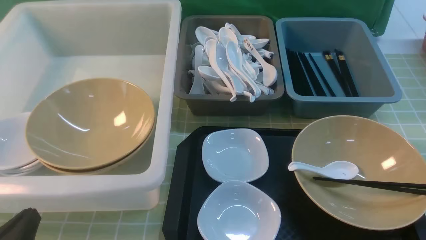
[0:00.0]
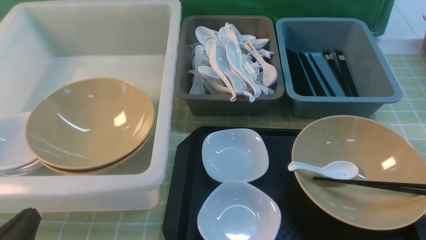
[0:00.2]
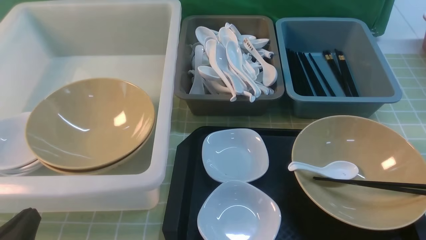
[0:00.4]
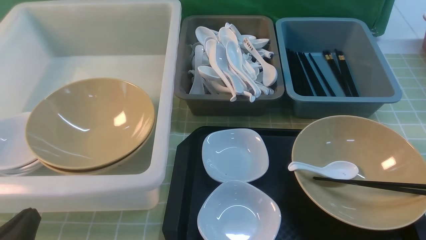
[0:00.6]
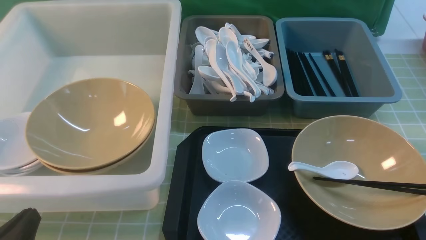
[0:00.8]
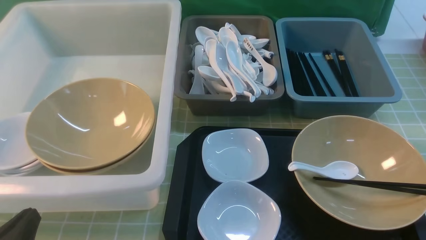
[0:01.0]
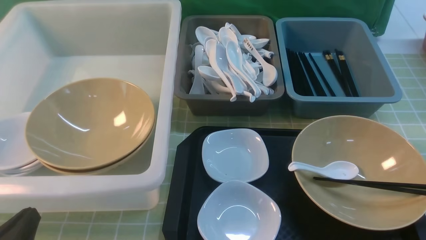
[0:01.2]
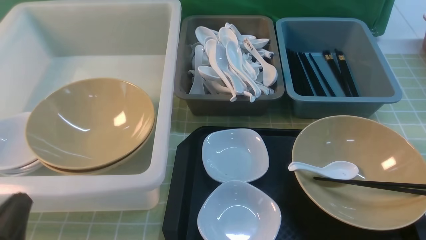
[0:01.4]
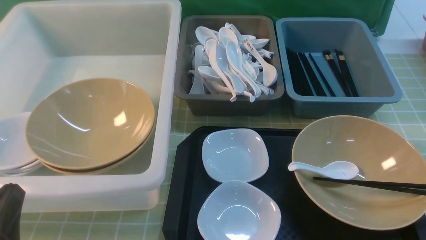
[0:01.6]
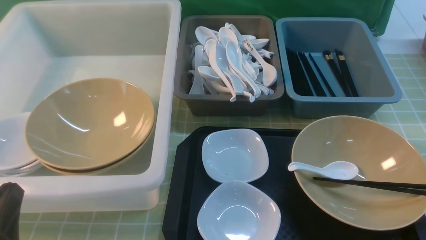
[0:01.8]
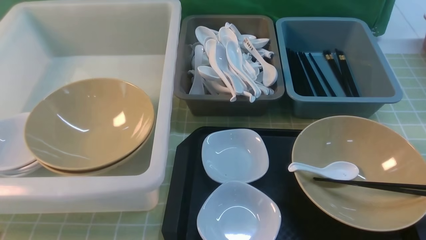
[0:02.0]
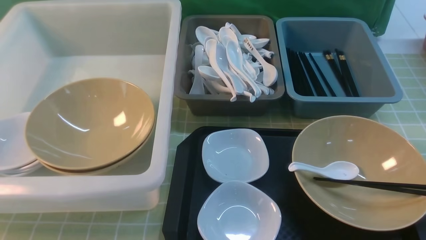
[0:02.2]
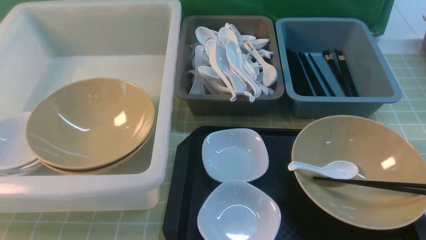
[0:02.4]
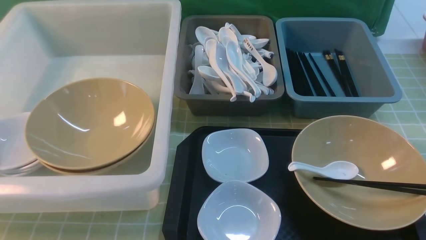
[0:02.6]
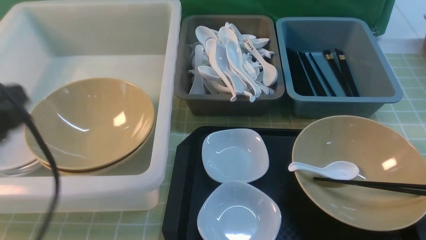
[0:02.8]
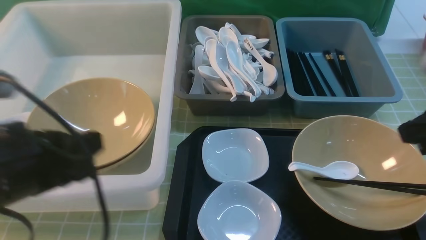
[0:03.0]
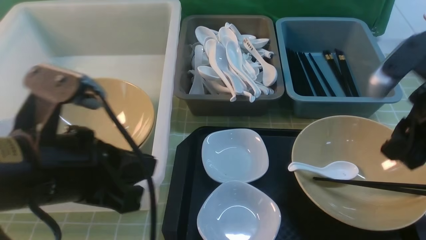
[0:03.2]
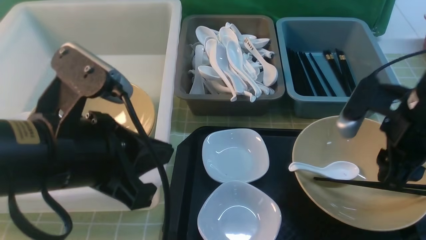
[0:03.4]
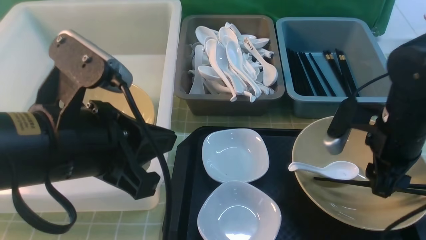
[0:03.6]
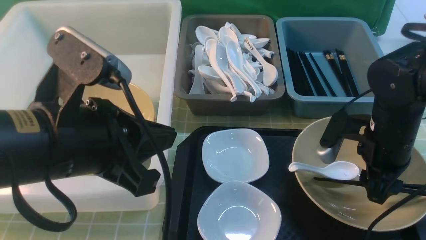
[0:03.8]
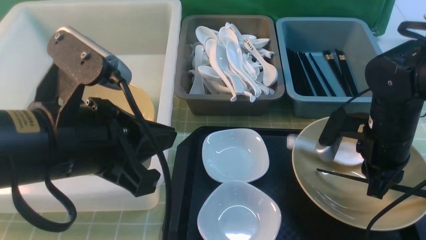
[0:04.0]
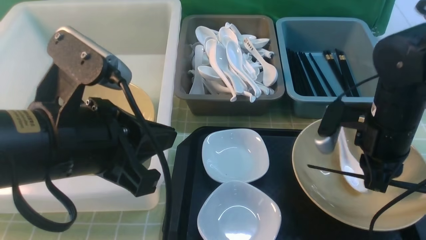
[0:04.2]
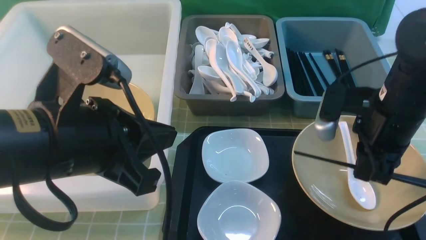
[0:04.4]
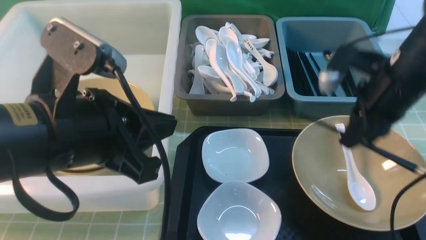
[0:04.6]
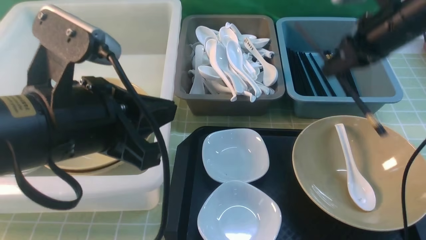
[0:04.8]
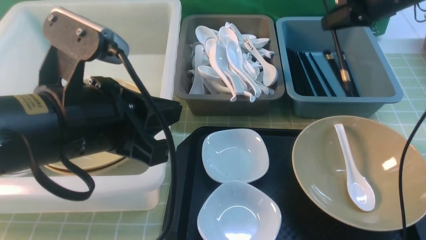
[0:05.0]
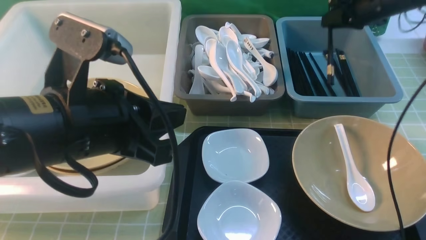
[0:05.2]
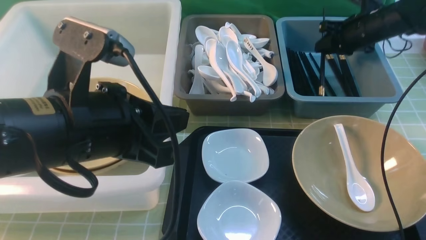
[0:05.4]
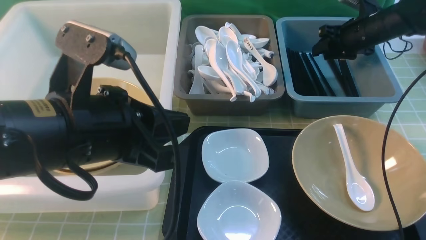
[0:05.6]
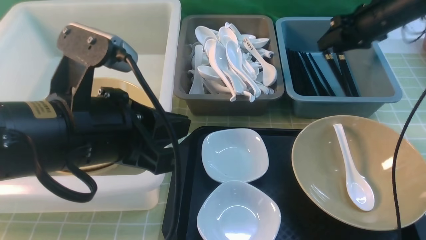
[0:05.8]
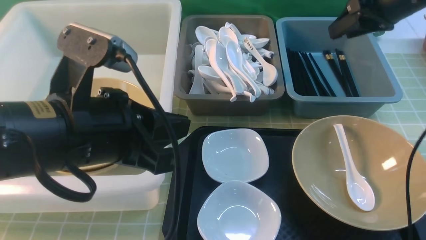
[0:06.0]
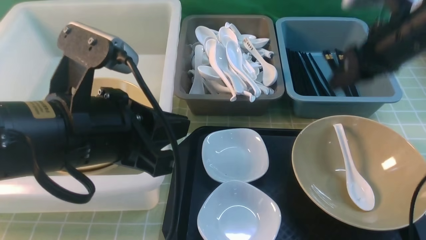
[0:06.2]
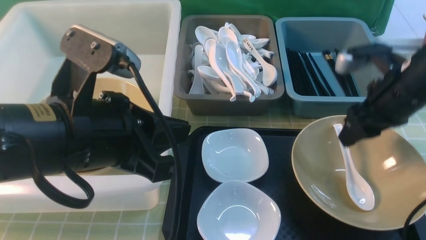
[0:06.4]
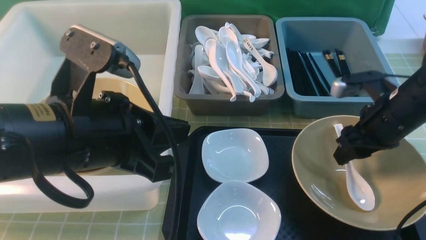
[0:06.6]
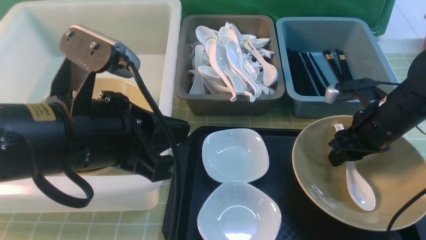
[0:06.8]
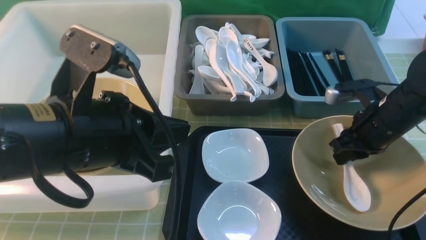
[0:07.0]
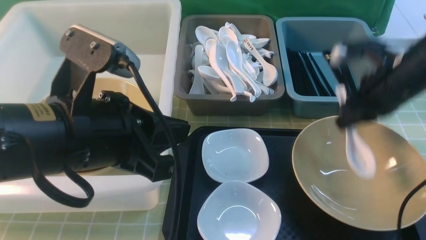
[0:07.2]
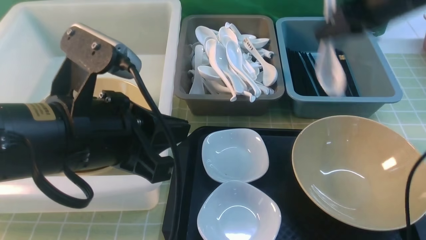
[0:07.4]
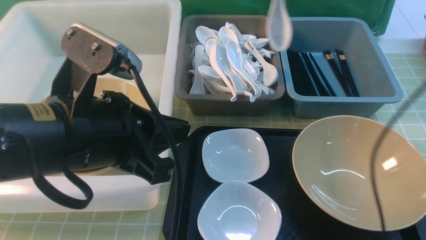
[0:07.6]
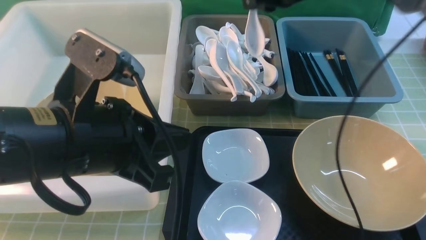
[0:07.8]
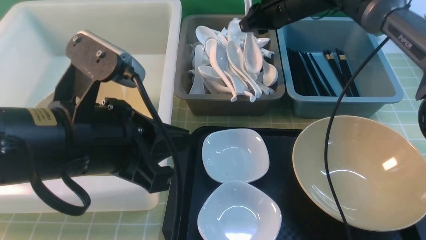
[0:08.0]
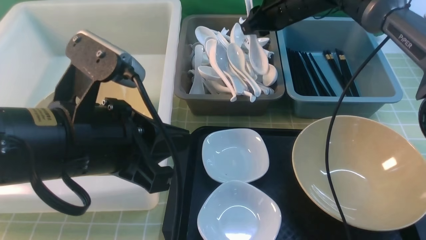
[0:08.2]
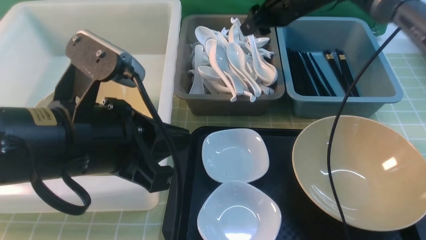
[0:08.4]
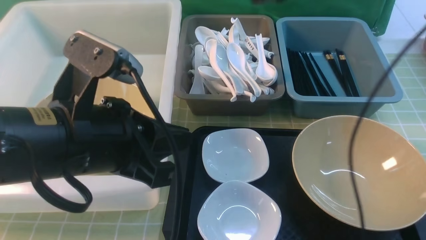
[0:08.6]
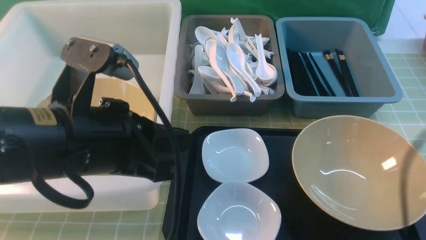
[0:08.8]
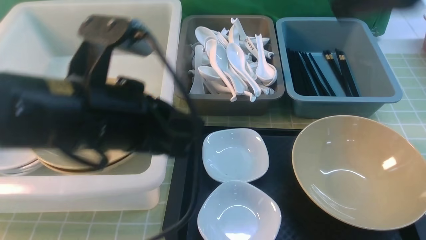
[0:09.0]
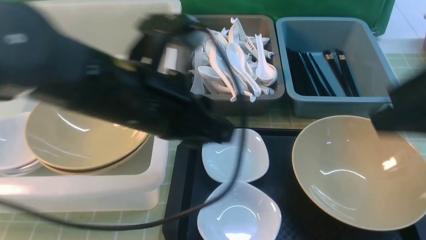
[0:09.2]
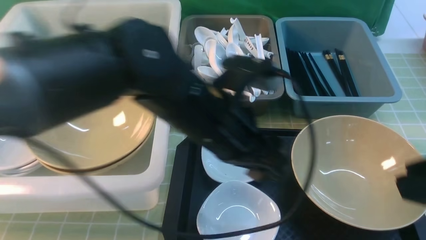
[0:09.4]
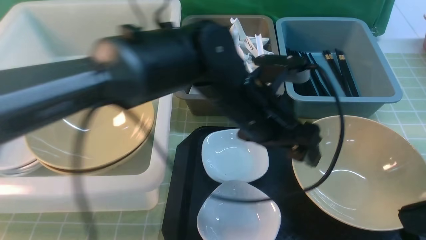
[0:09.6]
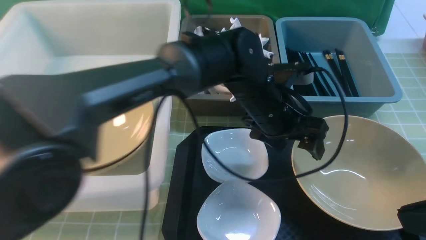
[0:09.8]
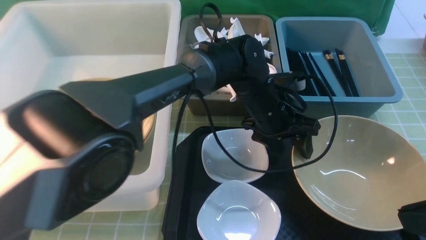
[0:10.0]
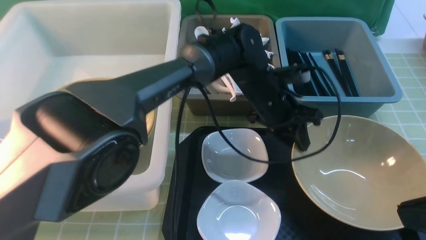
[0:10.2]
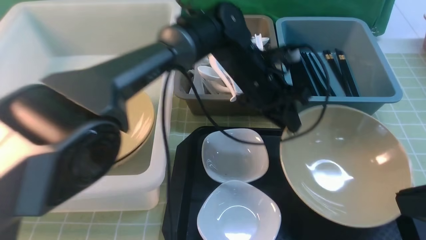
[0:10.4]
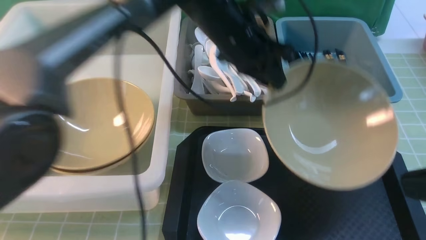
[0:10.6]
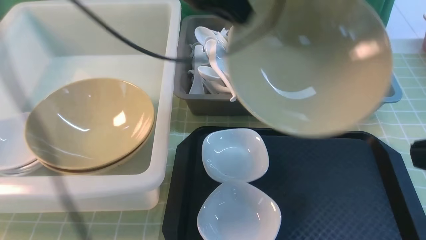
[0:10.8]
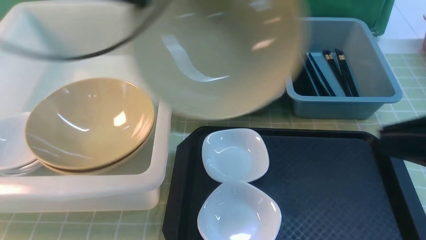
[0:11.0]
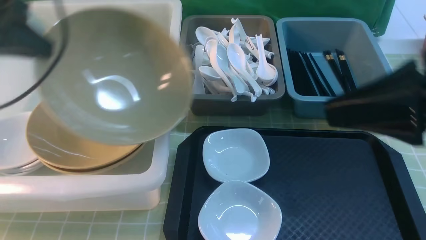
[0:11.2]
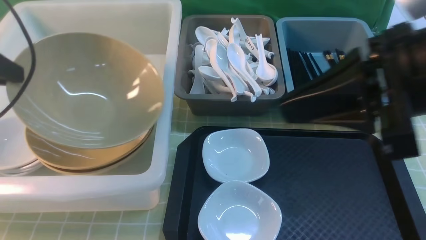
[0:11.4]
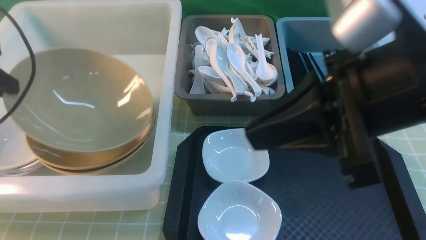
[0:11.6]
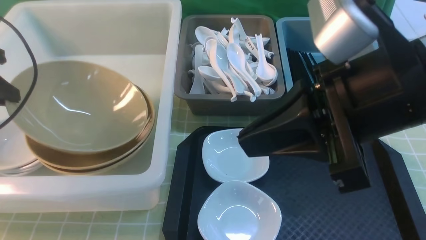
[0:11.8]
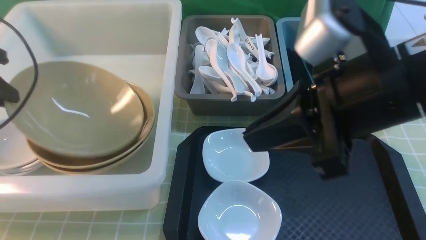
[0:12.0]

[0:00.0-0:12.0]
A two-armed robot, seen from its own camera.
Task of the whole recording: on green table put chopsticks spoon bowls plates into blue grey white boxes.
Step, 0:00.0 to 0:04.2: use the right arm to grab the chopsticks.
Step, 0:04.4 to 0:06.0: use the right arm to put the chopsticks into the small storage box on the right.
Step, 0:06.2 to 0:07.2: use the right arm to grab the soup spoon in the middle.
Step, 0:07.4 to 0:08.4: use the right arm to put the soup spoon into the small storage box in the middle.
Step, 0:08.6 to 0:10.4: use the left arm to grab the yellow noodle bowl on the left.
0:00.0 to 0:01.6: The grippers move only a little.
0:01.6 to 0:03.0: The left gripper travels upward, forward and to the right by approximately 15 cm. Meanwhile the right gripper moves forward and upward, some 20 cm.
0:03.0 to 0:04.4: The right gripper is displaced forward, downward and to the left by approximately 10 cm. Meanwhile the left gripper travels to the right by approximately 5 cm.
0:04.4 to 0:06.0: The right gripper travels forward, to the right and upward by approximately 15 cm, and opens.
0:06.0 to 0:07.6: The right gripper goes about 10 cm to the left, moves roughly 10 cm downward and comes back, and closes its fingers.
0:07.6 to 0:09.0: The right gripper heads backward and upward, covering about 25 cm, and opens up.
0:09.0 to 0:10.4: The left gripper moves forward, to the right and downward, roughly 25 cm, and opens, then closes once more. Meanwhile the right gripper moves backward and downward, some 20 cm, and closes.
0:10.4 to 0:12.0: The left gripper heads to the left, covering some 40 cm. Meanwhile the right gripper travels to the left and forward by roughly 15 cm.

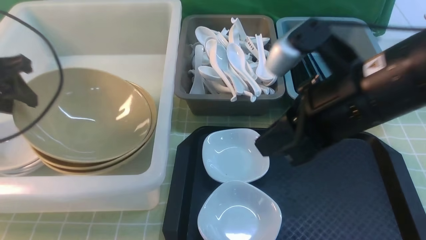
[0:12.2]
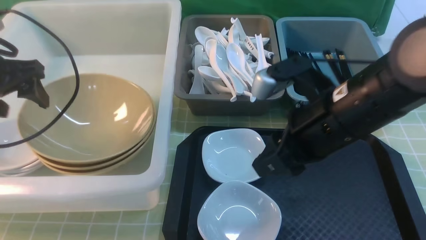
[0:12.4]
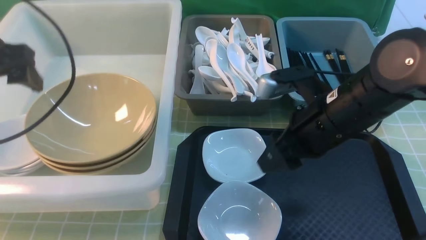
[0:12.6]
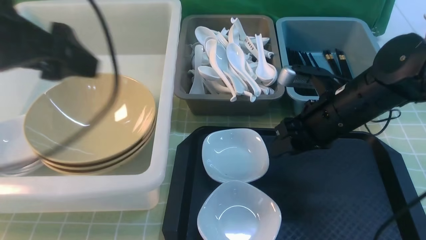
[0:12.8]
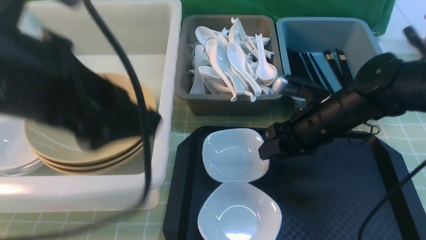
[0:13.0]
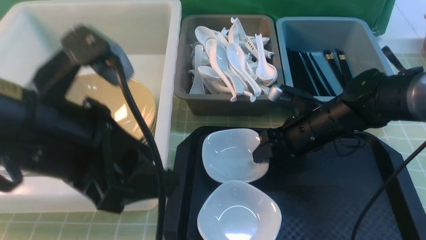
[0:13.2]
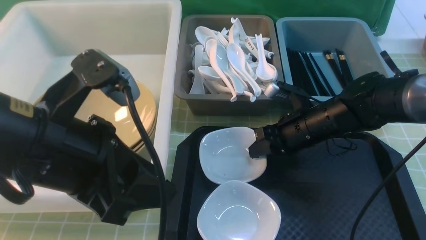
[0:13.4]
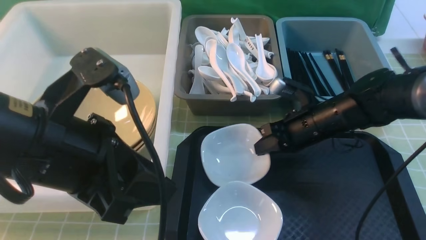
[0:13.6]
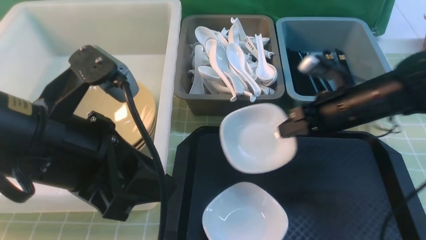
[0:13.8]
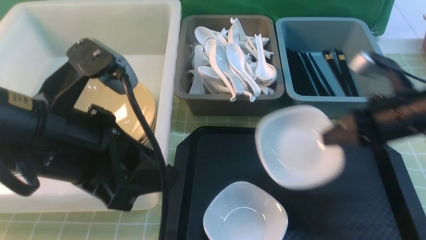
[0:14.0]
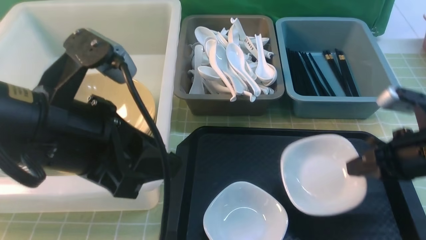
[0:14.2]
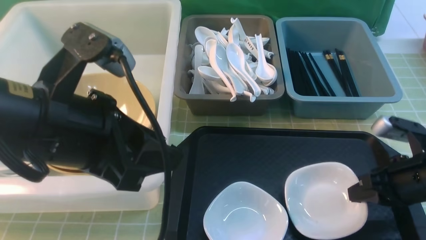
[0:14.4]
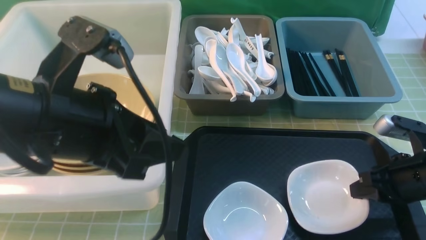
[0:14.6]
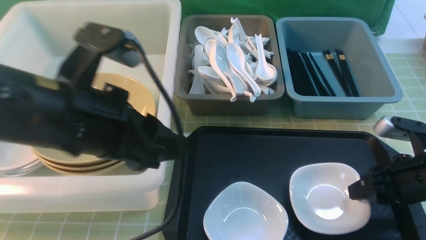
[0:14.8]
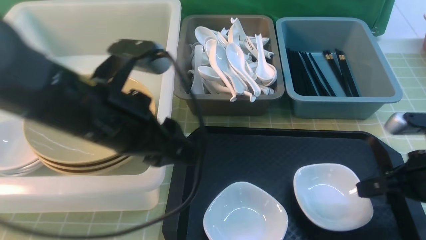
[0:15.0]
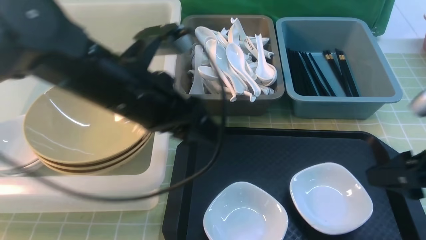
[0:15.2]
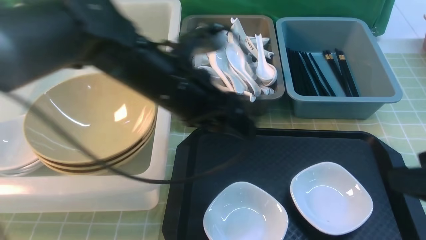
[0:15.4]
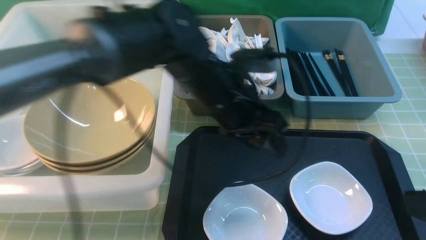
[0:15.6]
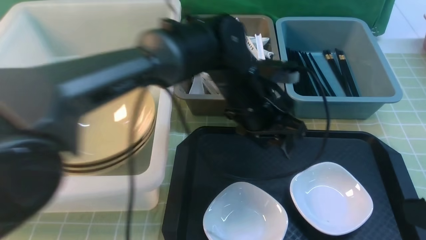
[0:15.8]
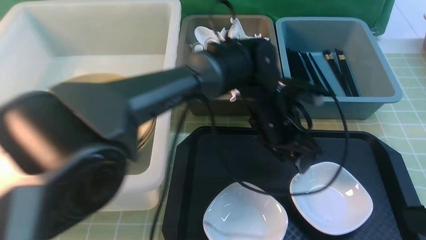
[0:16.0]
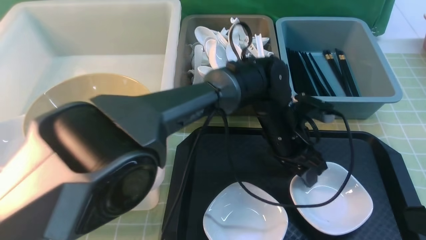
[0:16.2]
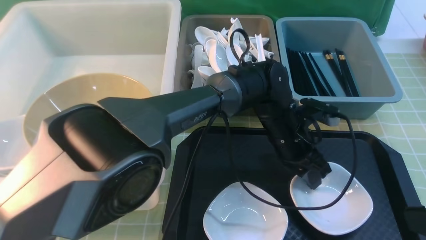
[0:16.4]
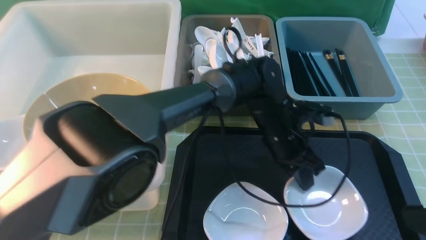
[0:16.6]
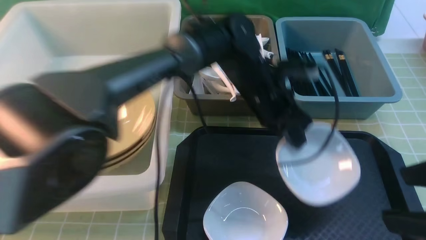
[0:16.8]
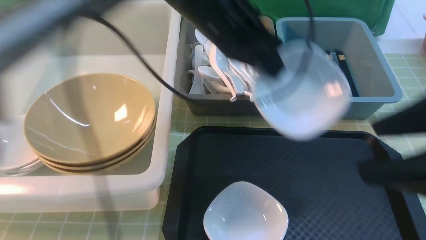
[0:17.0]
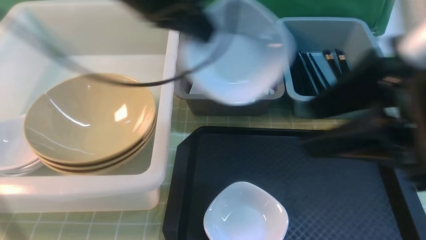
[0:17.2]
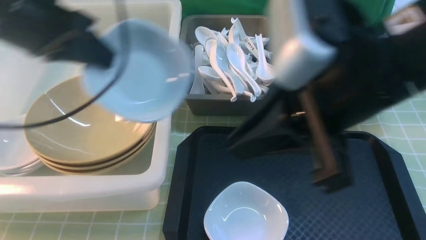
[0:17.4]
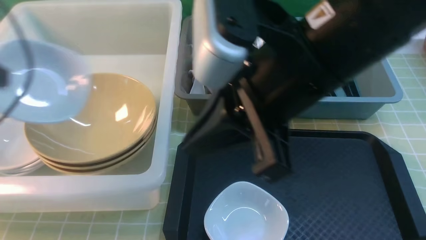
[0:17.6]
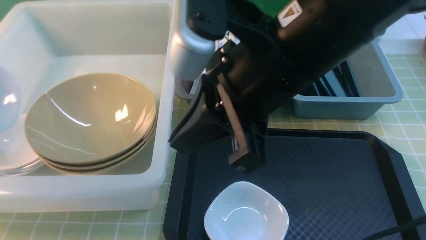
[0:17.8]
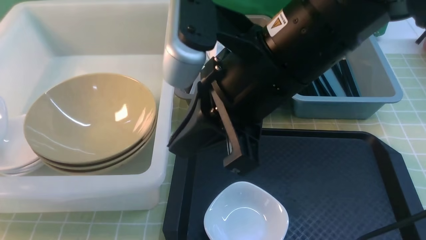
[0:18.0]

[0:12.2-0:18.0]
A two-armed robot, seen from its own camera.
Task of the whole recording: on green table put chopsticks spoon bowls plates into blue grey white boxes.
Step, 0:12.6 to 0:13.6: use the right arm to grab the plate.
Step, 0:13.8 to 0:14.8: use the right arm to put the plate on the tray.
Step, 0:15.0 to 0:16.6: use the left arm to grab the plate.
0:12.2 to 0:13.6: The left gripper shifts roughly 25 cm to the right and backward, and opens and closes again. Meanwhile the right gripper moves downward and forward, roughly 20 cm, and opens and closes again.
0:13.6 to 0:15.0: The left gripper moves forward, about 5 cm; the right gripper is displaced backward and to the right by approximately 15 cm, and opens up.
0:15.0 to 0:16.6: The right gripper shifts roughly 15 cm upward and backward, while the left gripper travels to the right, downward and forward by about 25 cm, and closes up.
0:16.6 to 0:18.0: The left gripper travels to the left by about 50 cm; the right gripper goes about 25 cm to the left and forward, and closes its fingers.
